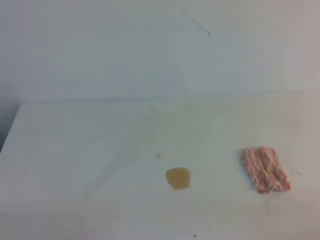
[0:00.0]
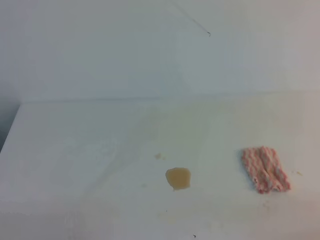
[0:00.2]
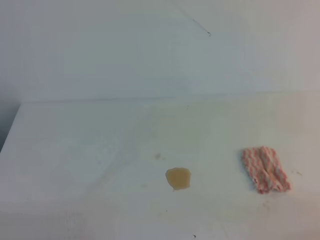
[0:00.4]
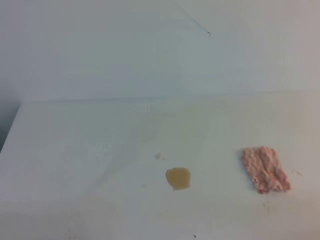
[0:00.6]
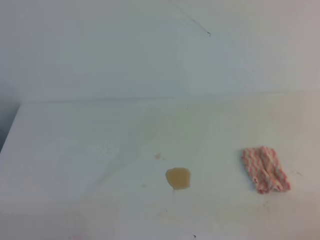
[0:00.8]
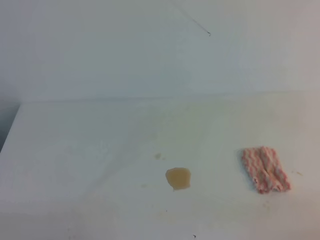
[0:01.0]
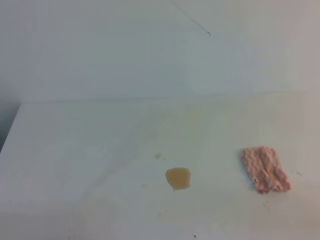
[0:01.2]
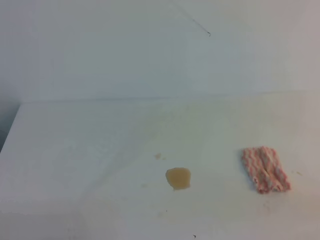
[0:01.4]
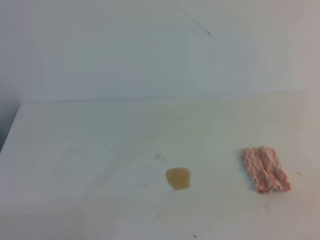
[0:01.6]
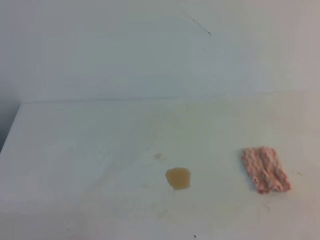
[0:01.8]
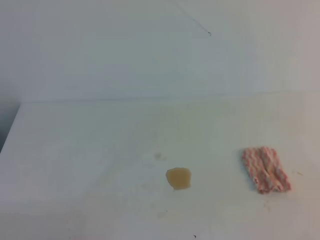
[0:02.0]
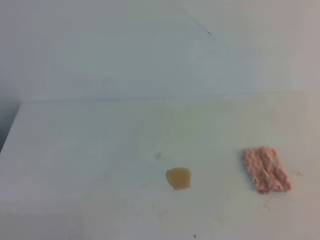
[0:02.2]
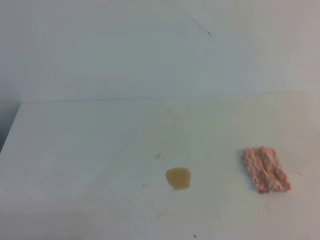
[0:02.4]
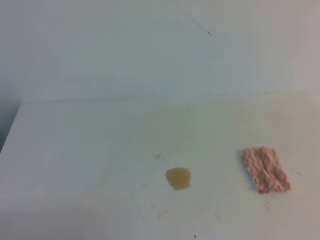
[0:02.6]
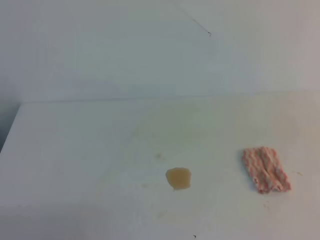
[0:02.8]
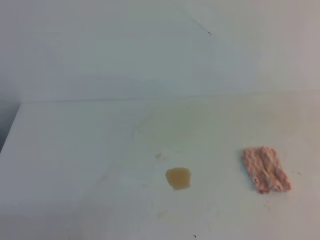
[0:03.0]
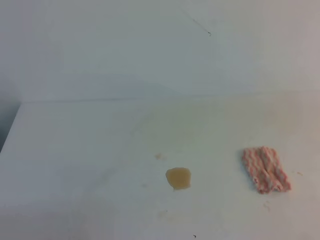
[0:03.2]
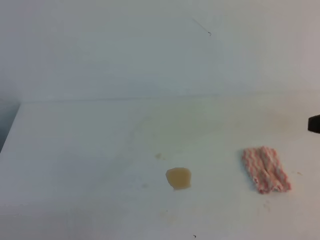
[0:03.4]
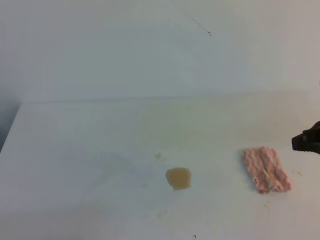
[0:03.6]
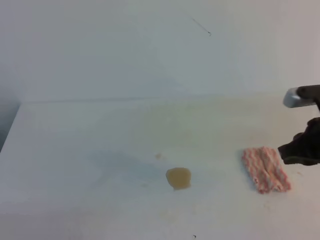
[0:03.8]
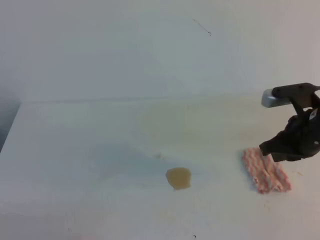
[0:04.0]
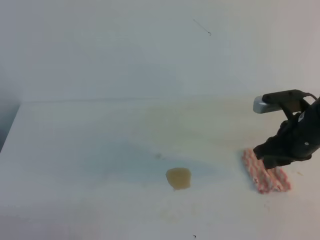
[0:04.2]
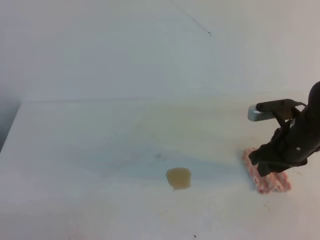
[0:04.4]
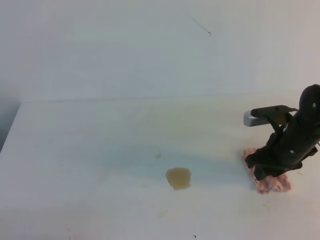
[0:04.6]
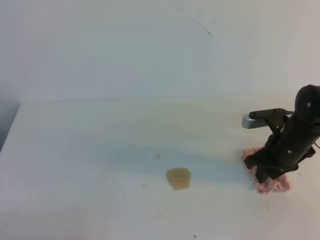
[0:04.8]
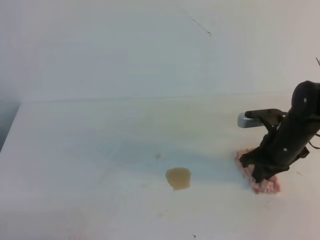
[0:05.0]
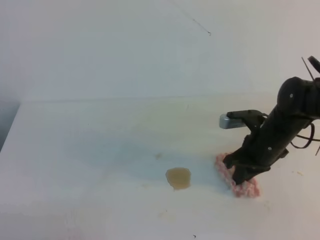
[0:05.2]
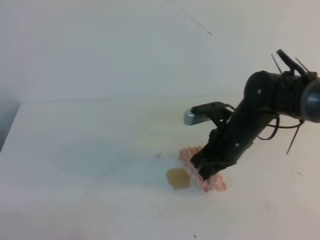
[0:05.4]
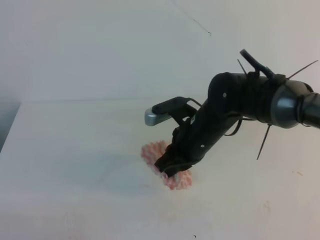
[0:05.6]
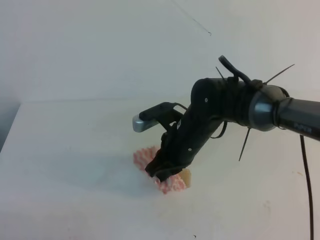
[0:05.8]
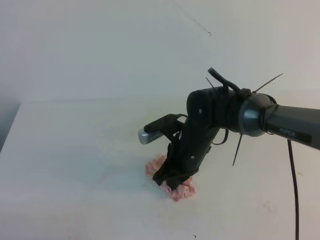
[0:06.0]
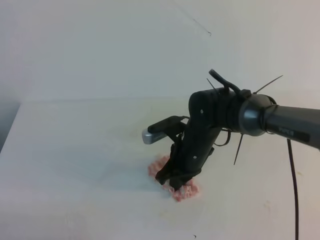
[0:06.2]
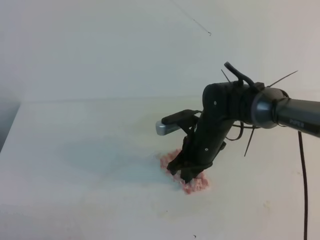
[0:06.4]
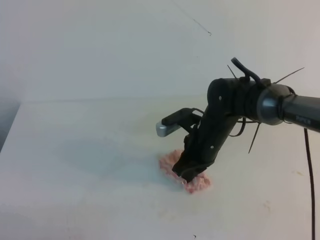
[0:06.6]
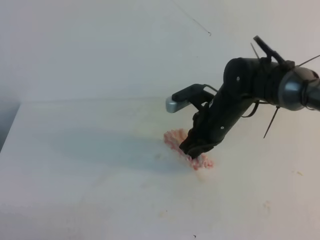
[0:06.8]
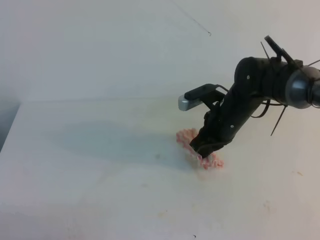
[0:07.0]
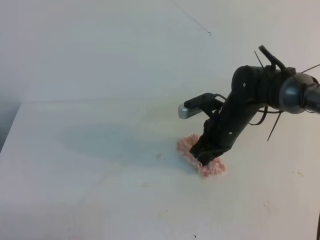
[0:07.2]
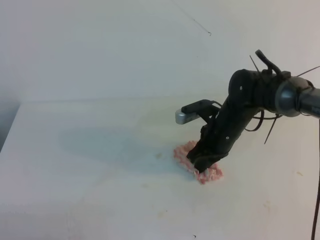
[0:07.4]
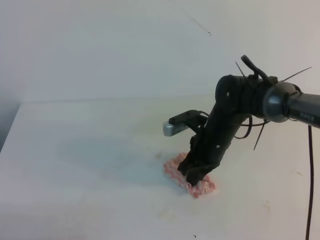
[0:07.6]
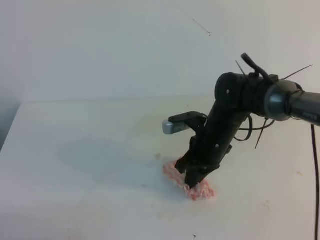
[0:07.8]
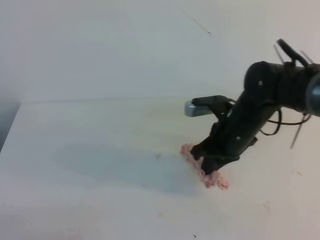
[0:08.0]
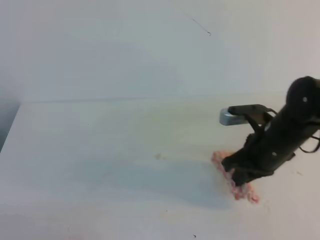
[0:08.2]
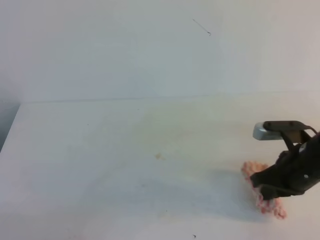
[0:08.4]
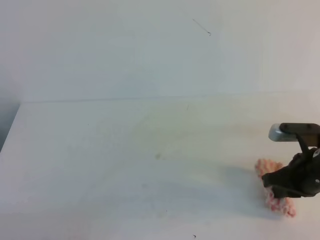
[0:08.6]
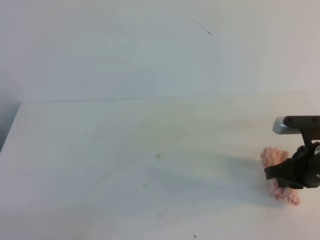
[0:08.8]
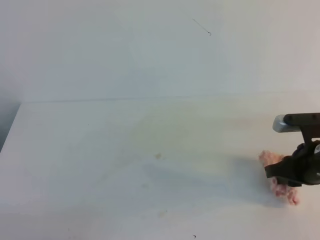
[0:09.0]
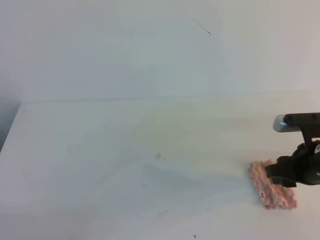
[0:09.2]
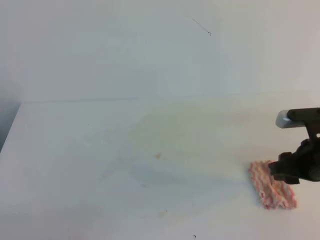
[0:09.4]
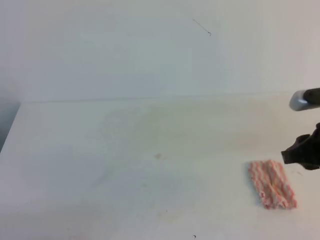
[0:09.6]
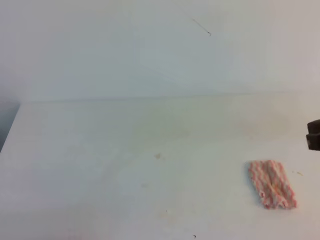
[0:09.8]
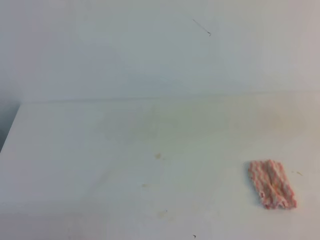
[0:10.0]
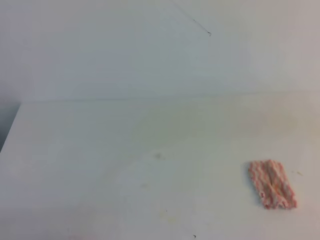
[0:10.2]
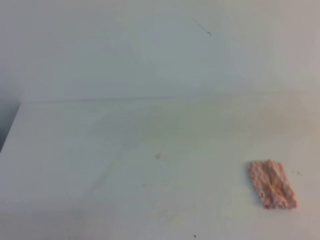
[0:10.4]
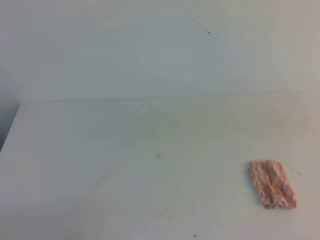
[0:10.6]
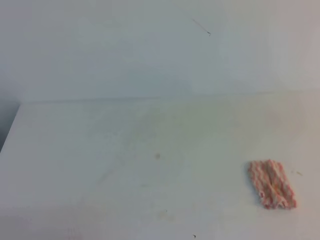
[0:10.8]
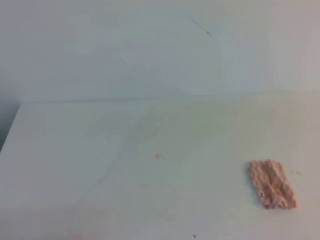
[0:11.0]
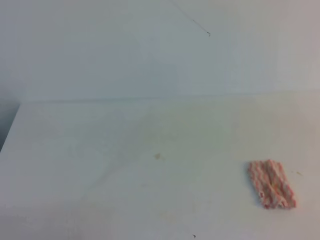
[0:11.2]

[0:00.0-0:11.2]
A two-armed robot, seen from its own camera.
0:03.2 to 0:04.8: The right gripper travels downward, forward and to the left by some 25 cm, and opens.
0:04.8 to 0:06.4: The right gripper moves to the left, approximately 15 cm, and closes up.
0:06.4 to 0:08.0: The right gripper shifts some 5 cm to the right.
0:08.0 to 0:09.6: The right gripper is displaced to the right, backward and upward by approximately 15 cm, and opens.
0:09.6 to 0:11.2: The right gripper moves backward and upward, roughly 25 cm, and closes.

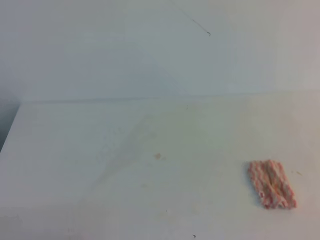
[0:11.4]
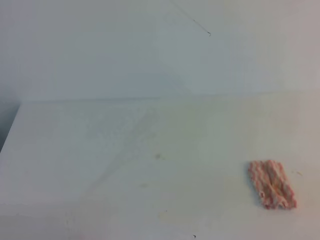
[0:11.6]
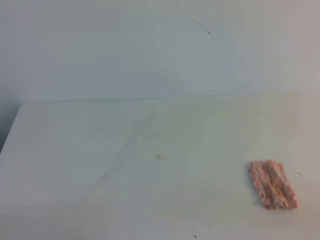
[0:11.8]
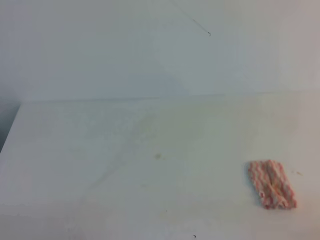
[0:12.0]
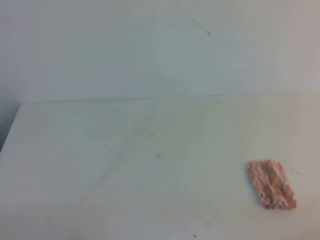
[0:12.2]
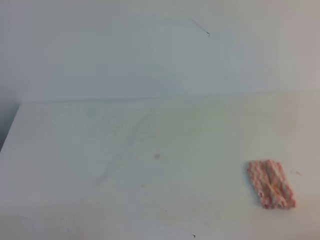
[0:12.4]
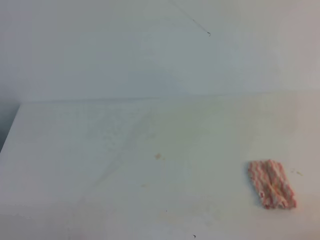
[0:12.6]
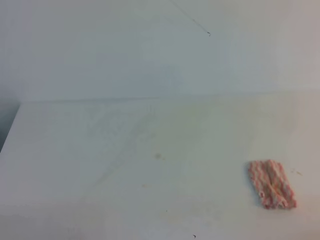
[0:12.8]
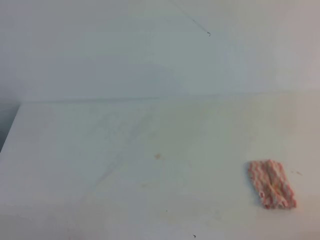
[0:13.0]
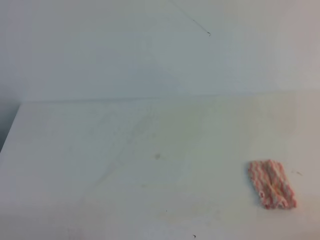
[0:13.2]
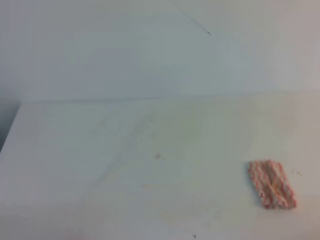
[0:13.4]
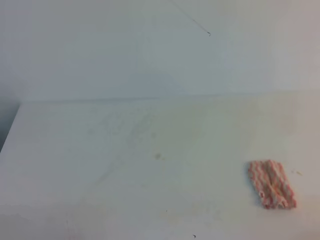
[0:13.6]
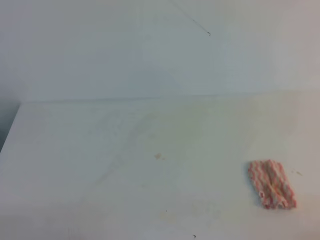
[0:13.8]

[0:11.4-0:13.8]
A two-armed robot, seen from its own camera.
0:12.6 to 0:13.8: Both grippers stay put.

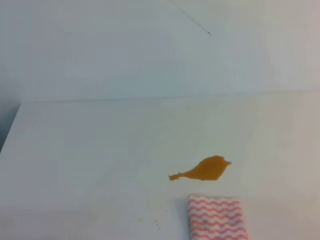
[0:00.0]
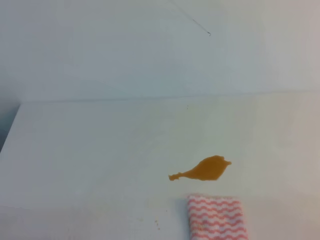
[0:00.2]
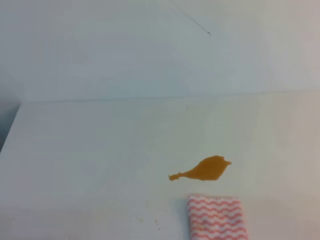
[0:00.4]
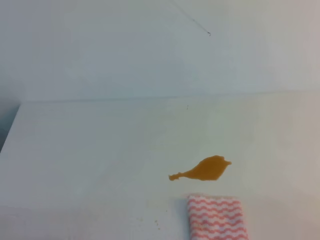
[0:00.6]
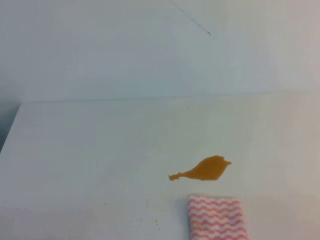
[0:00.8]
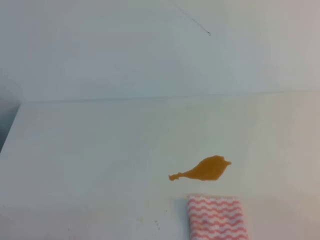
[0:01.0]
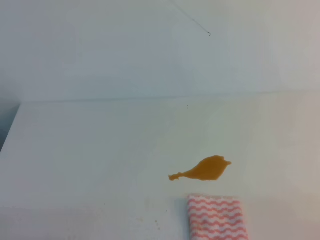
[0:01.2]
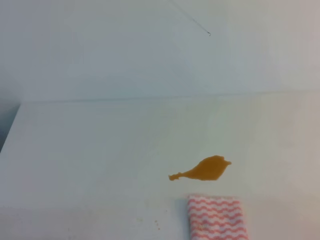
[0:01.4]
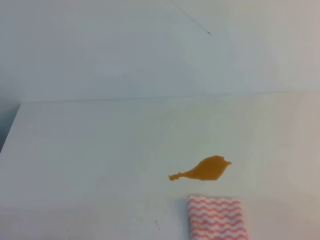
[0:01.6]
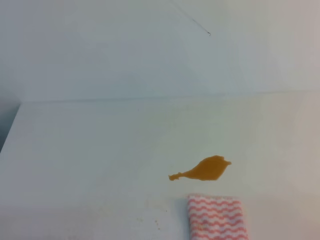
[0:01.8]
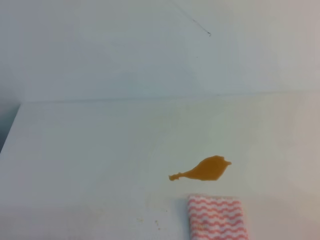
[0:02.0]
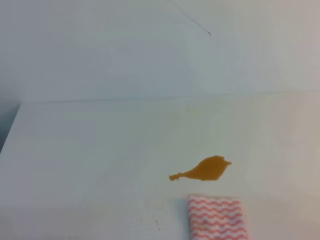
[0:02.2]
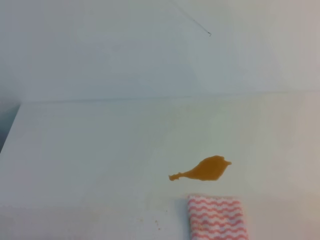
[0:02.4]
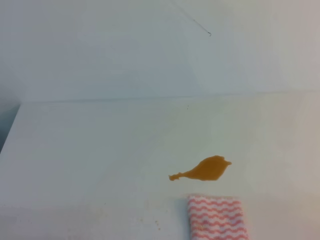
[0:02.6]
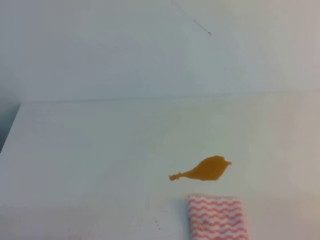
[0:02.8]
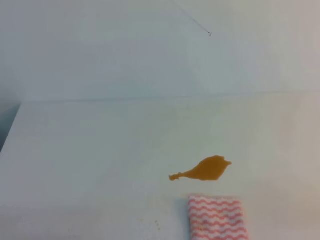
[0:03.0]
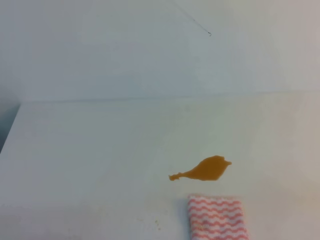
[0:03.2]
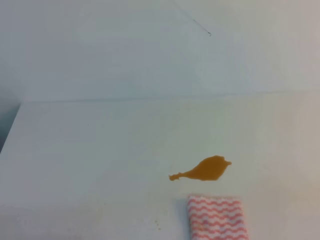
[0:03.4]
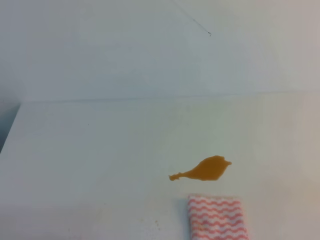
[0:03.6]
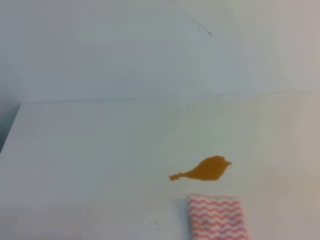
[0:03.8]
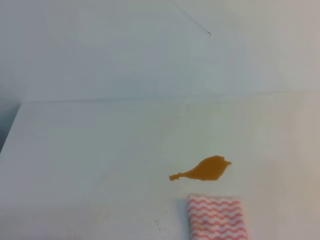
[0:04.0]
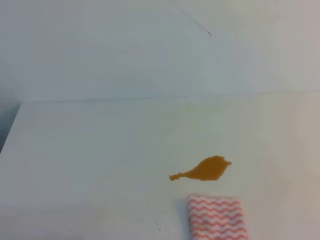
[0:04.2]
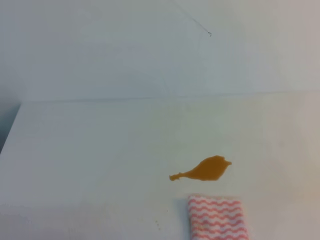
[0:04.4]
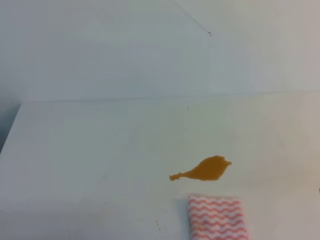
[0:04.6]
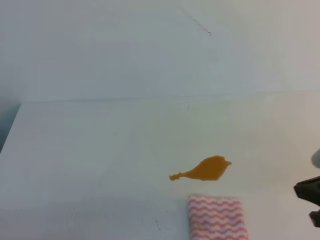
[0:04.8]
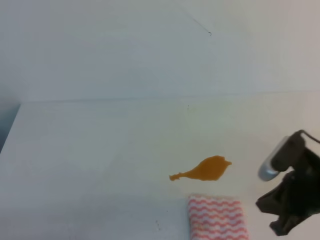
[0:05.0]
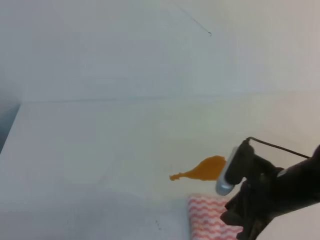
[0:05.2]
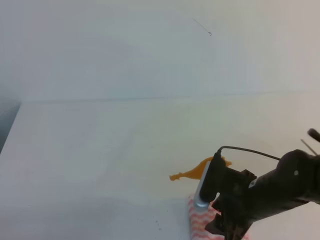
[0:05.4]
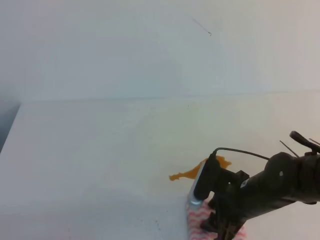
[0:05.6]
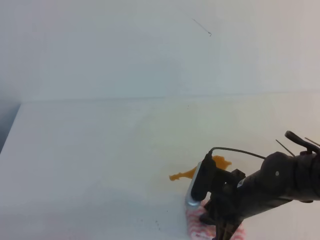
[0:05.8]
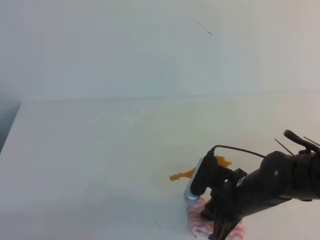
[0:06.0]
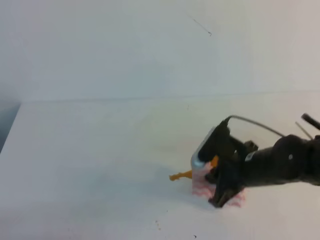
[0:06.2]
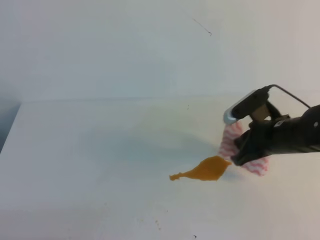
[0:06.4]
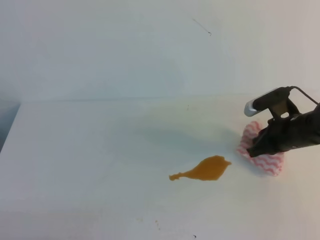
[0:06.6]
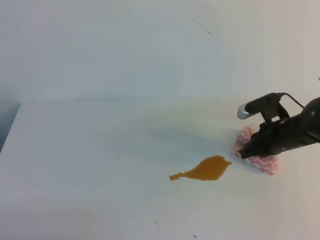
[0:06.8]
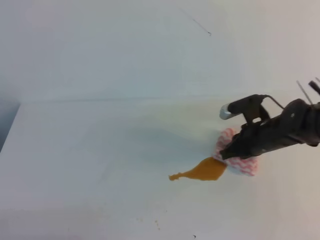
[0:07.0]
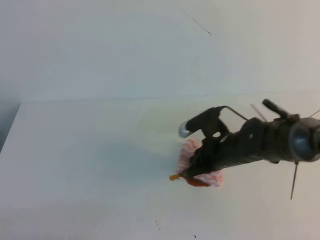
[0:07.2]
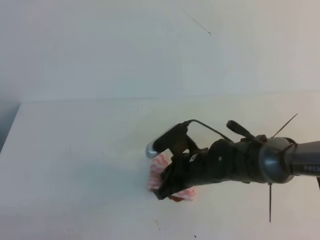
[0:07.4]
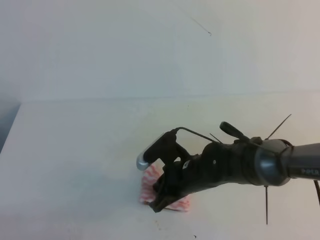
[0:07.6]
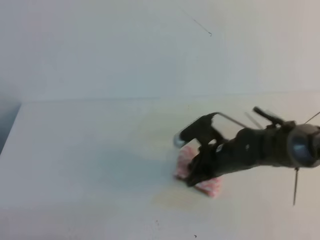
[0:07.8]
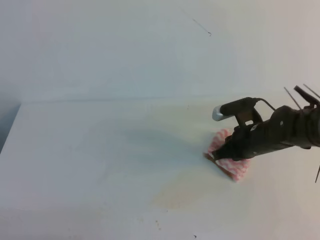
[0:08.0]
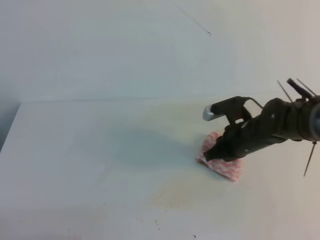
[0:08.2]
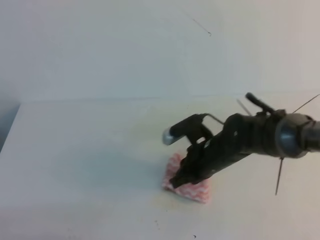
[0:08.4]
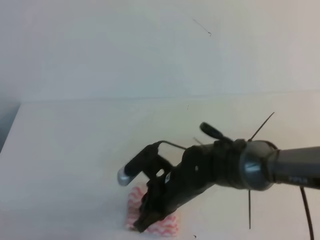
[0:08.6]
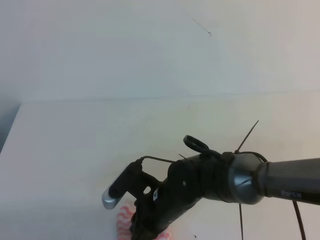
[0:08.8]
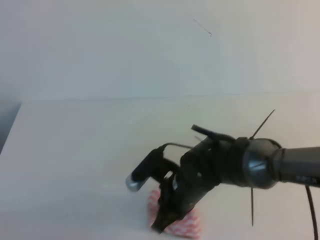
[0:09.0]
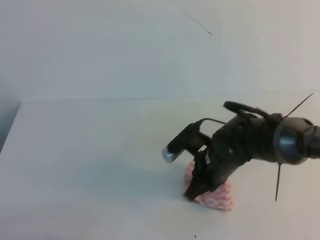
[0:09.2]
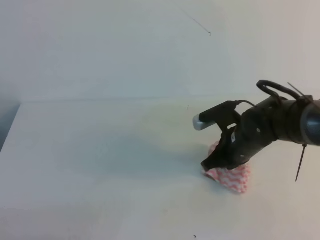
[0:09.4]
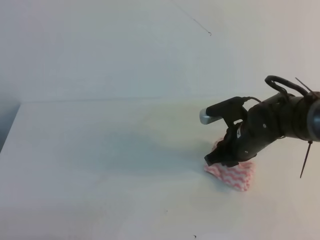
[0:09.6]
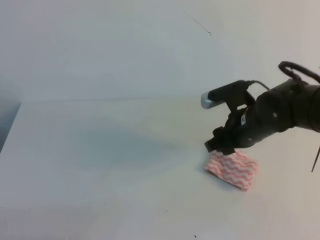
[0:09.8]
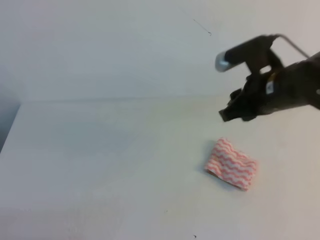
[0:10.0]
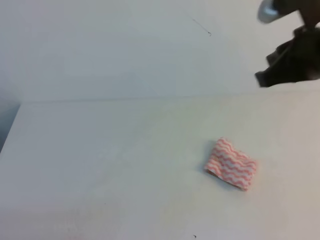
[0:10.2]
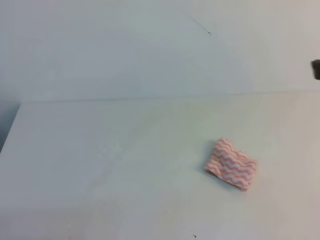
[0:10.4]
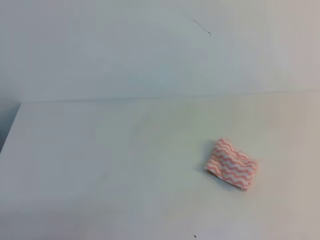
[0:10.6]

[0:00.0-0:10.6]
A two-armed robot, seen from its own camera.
0:00.0 to 0:01.6: Neither gripper changes place.
0:04.6 to 0:06.0: The right gripper is displaced to the left, downward and forward by about 25 cm, and opens and closes again.
0:06.0 to 0:07.6: The right gripper is displaced to the left and forward by about 10 cm.
0:07.6 to 0:09.0: The right gripper reaches about 10 cm to the right, then returns.
0:09.0 to 0:10.6: The right gripper heads upward and to the right, covering approximately 35 cm, and opens, then closes once more.
